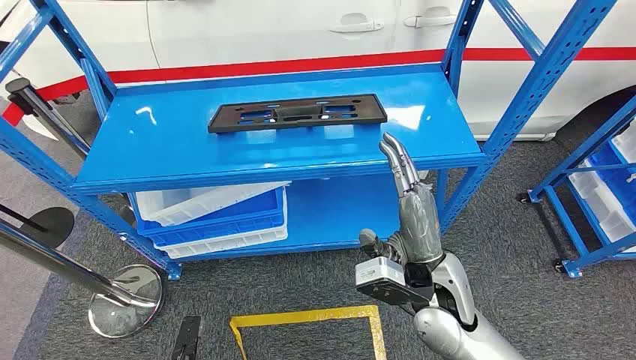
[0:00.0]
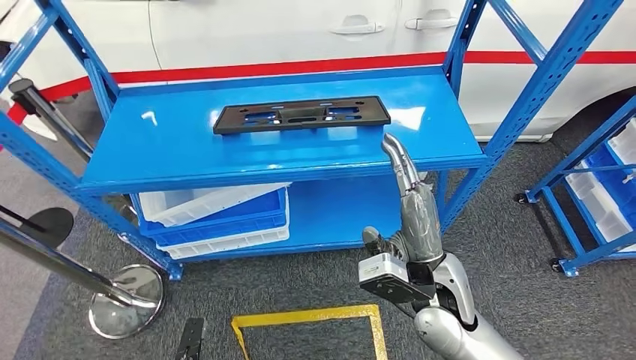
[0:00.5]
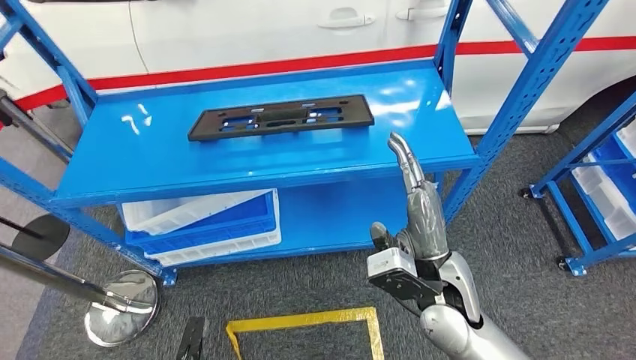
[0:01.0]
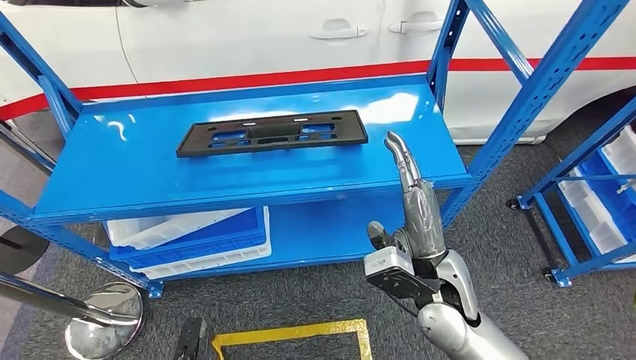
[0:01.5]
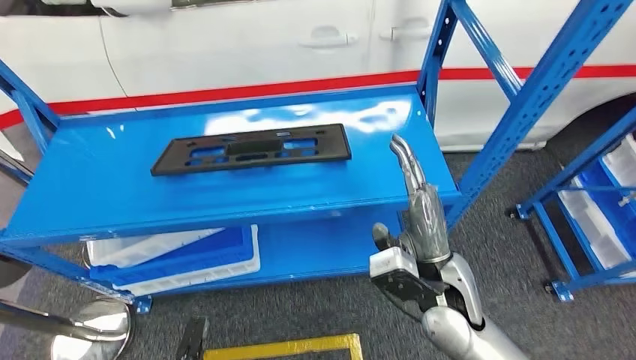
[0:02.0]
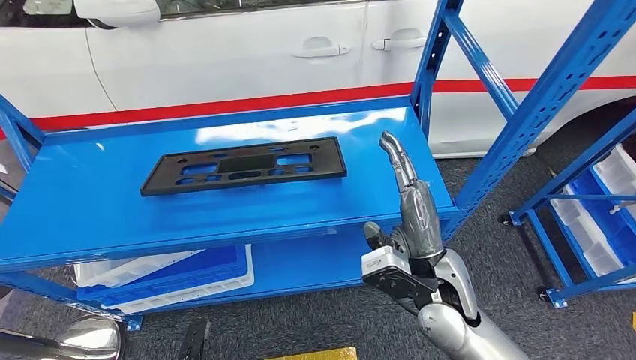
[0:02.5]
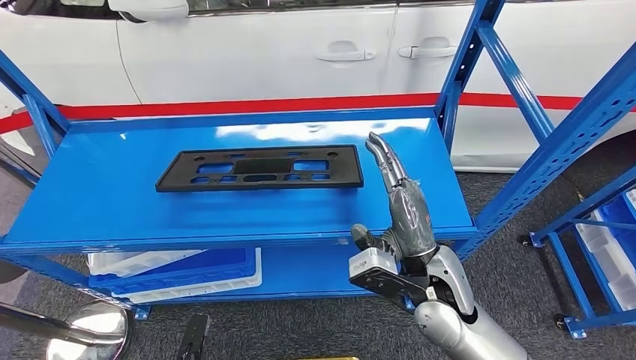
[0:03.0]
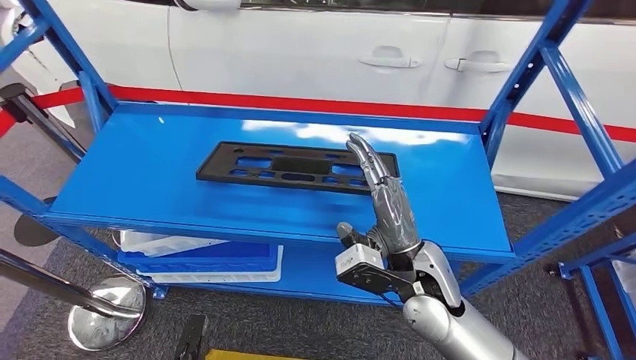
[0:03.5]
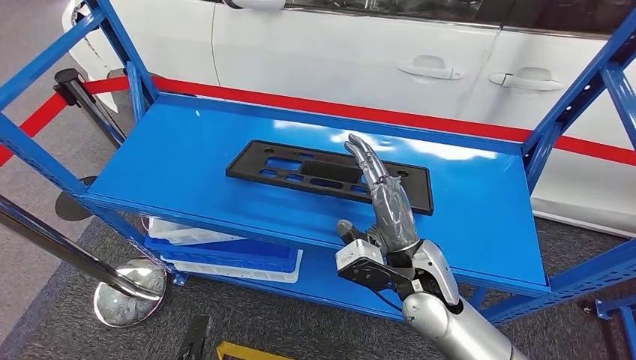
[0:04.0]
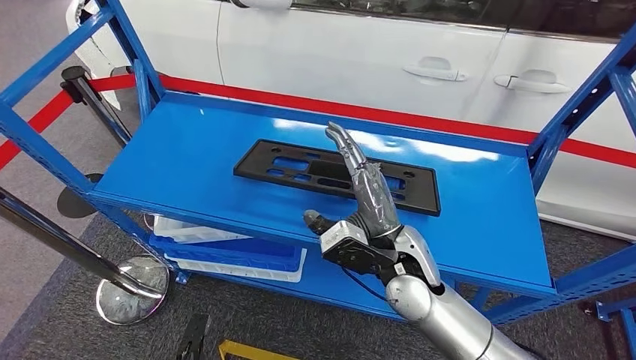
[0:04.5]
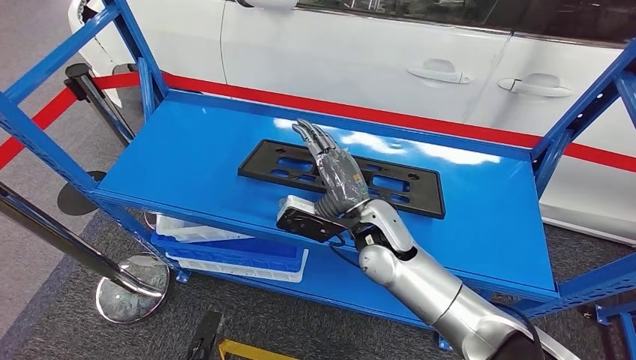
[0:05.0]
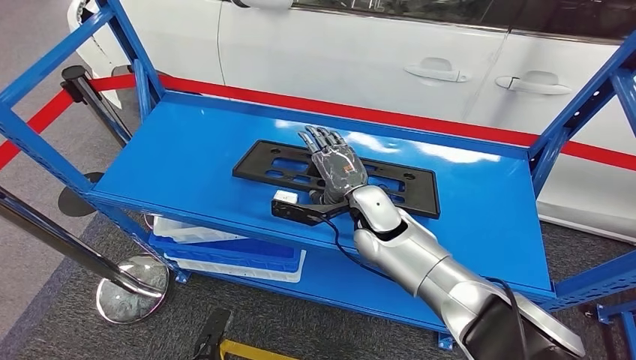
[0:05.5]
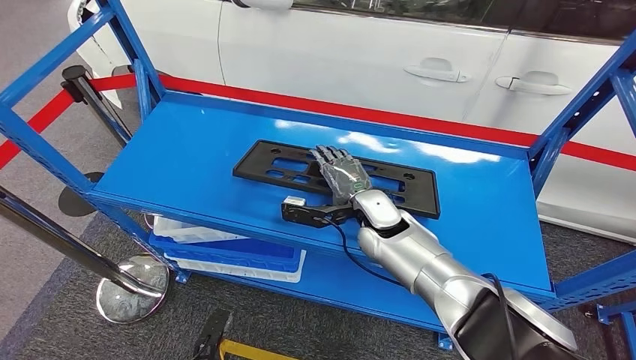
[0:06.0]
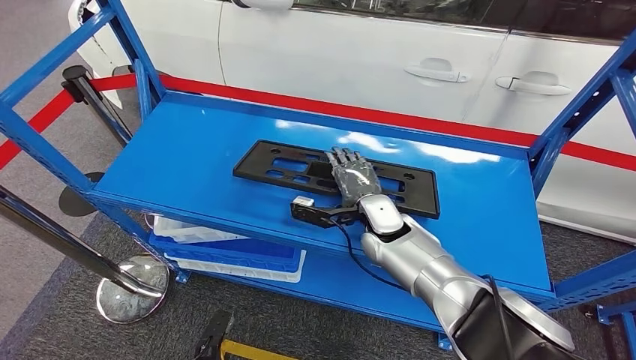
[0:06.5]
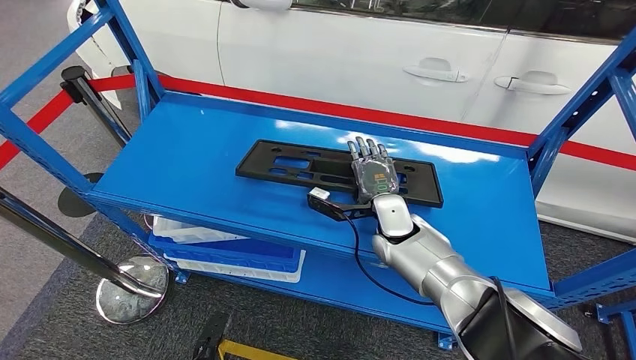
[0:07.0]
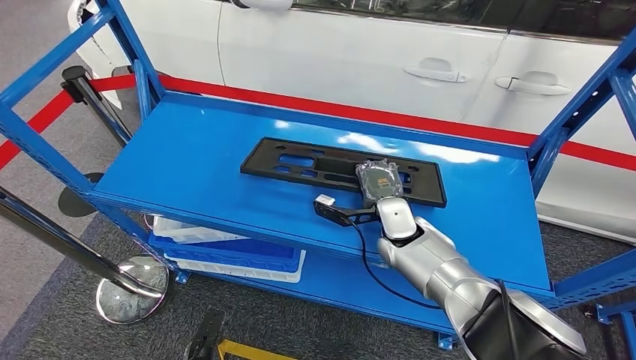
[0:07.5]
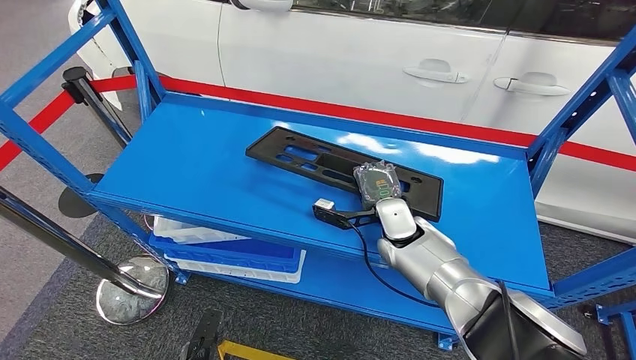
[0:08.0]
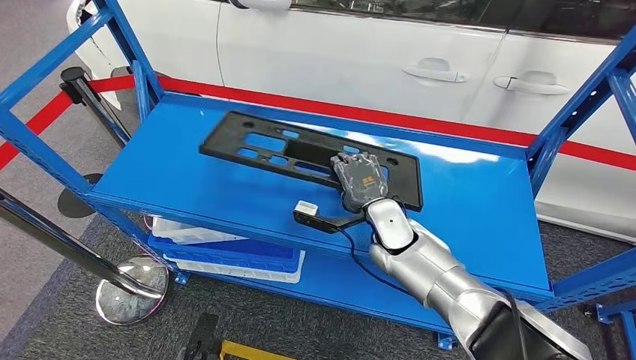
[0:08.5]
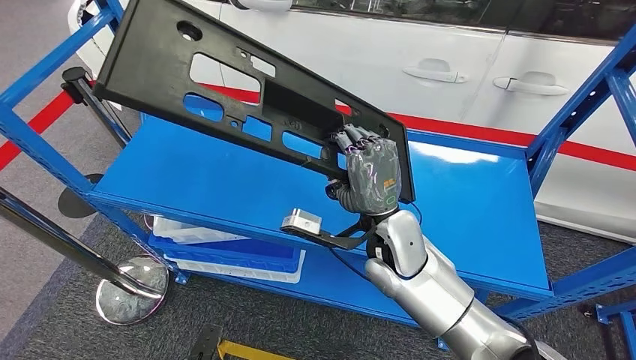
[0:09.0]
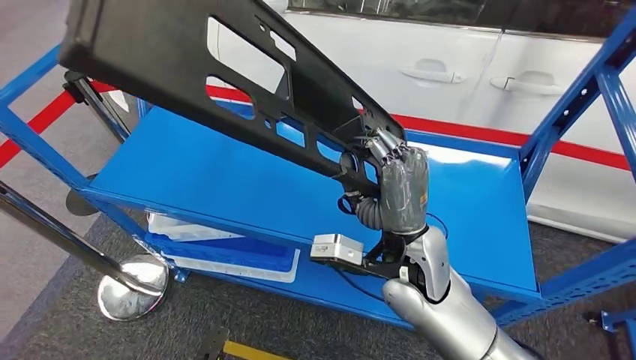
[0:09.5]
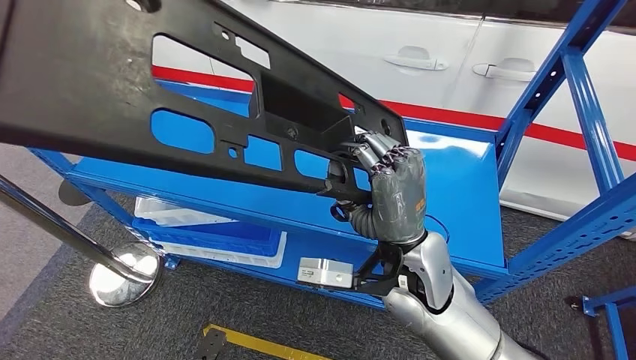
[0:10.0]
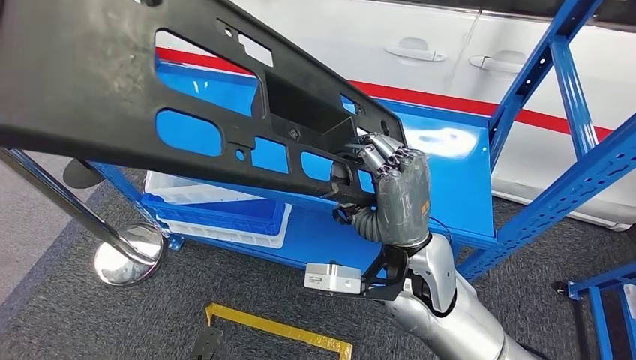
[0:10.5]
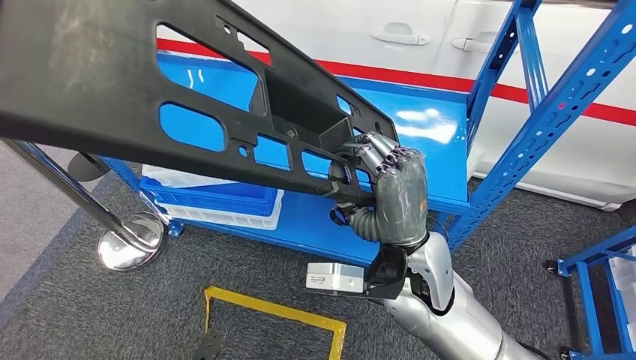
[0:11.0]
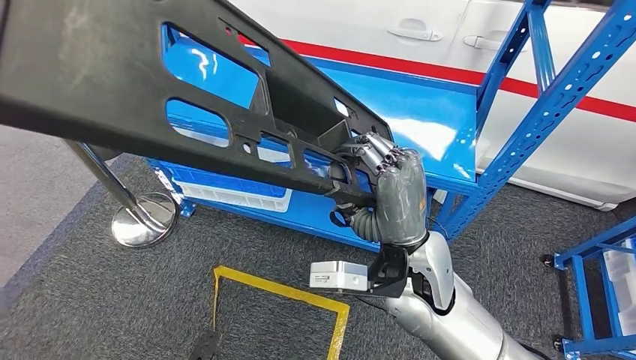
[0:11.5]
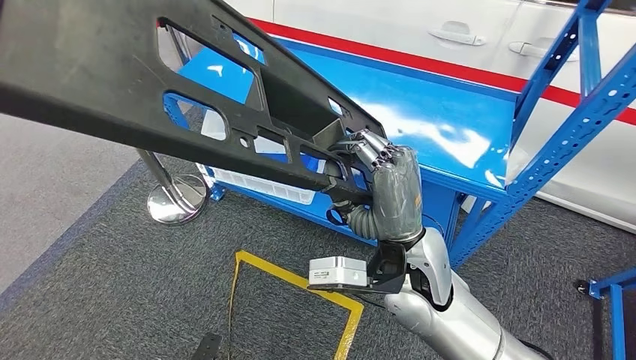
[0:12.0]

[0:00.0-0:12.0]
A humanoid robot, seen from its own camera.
Step, 0:00.0 to 0:11.0: Pick up the large material from the shelf.
0:06.0 to 0:08.0: The right hand moves some 5 cm.

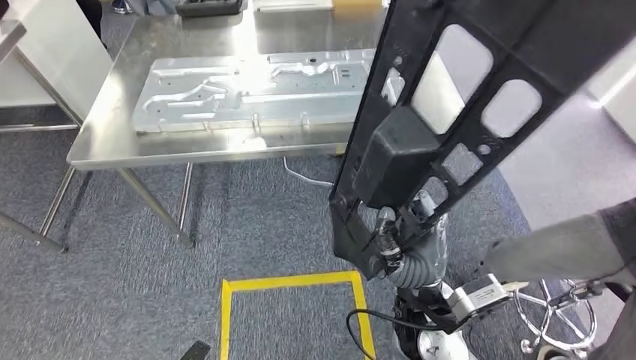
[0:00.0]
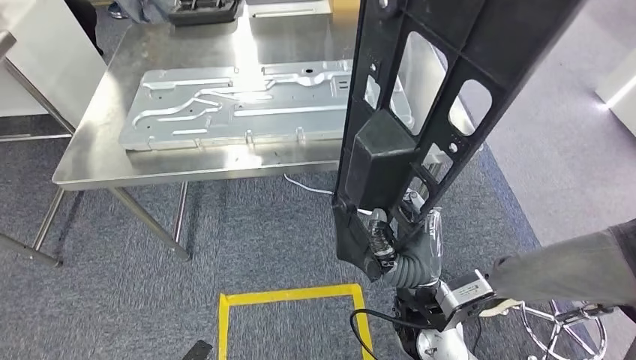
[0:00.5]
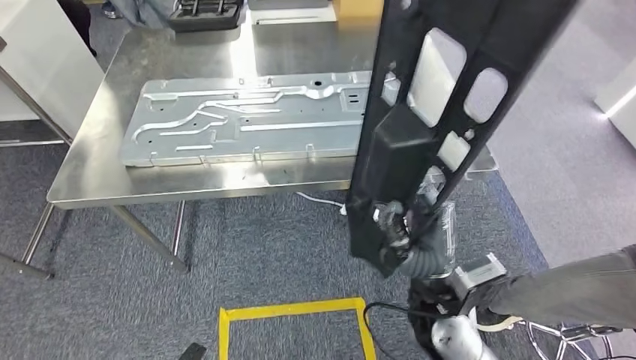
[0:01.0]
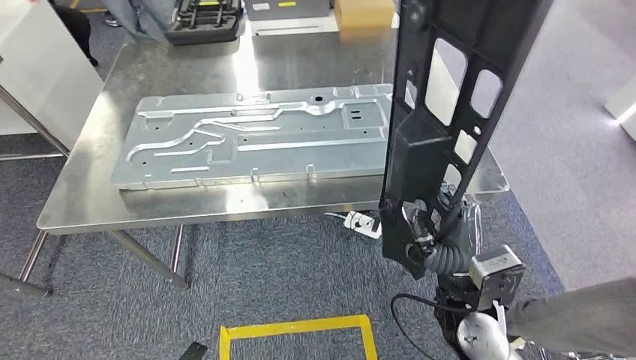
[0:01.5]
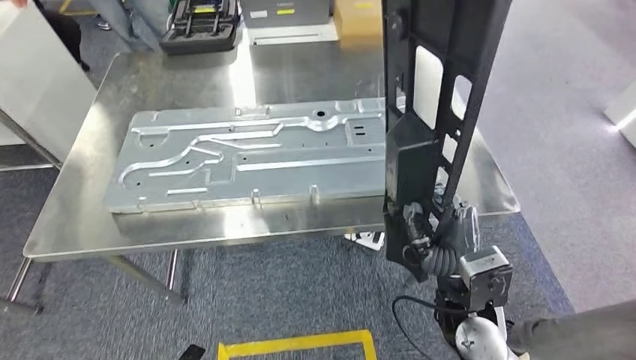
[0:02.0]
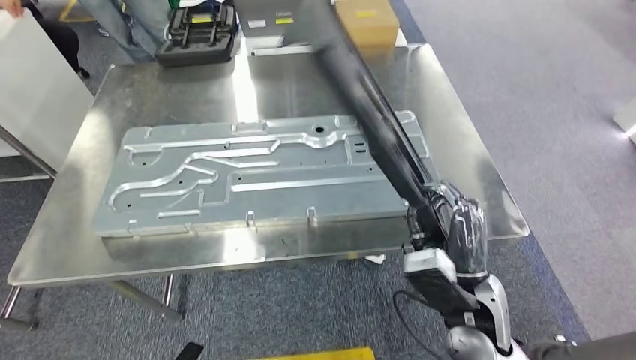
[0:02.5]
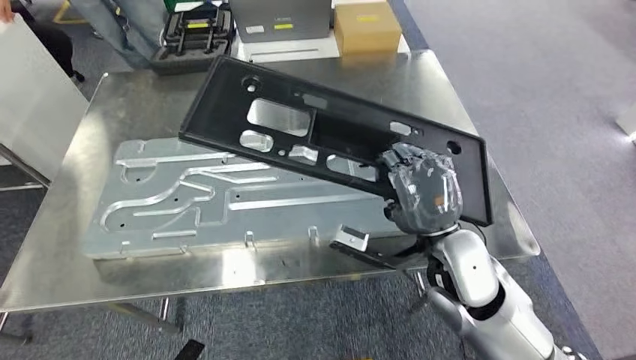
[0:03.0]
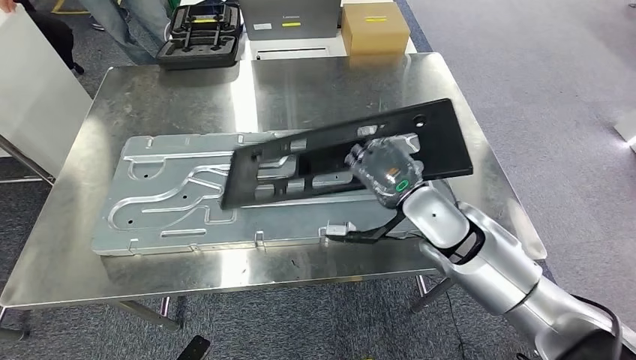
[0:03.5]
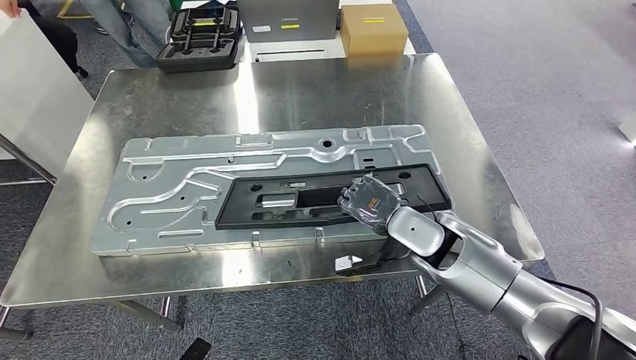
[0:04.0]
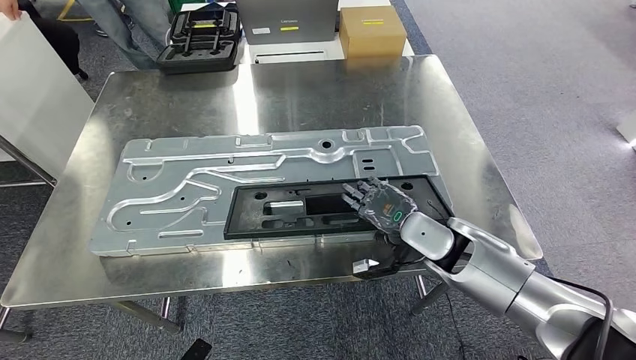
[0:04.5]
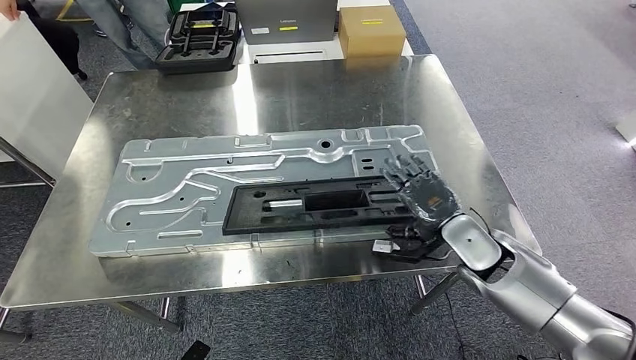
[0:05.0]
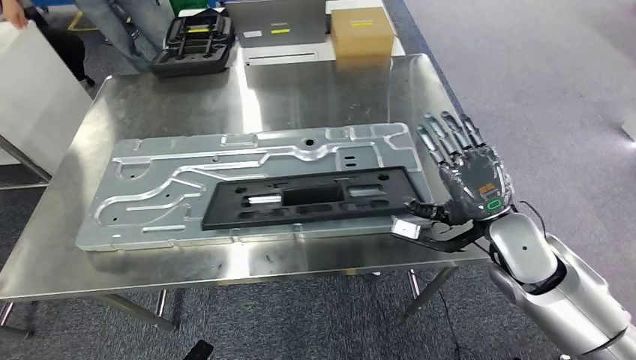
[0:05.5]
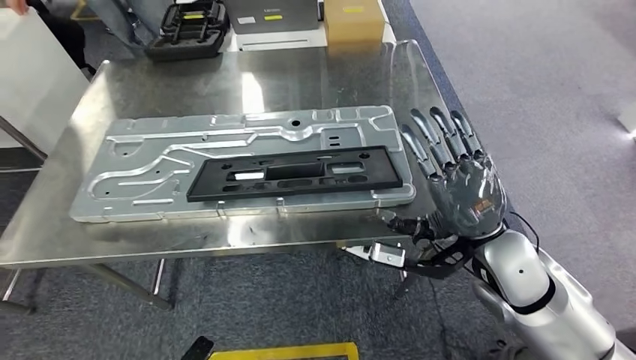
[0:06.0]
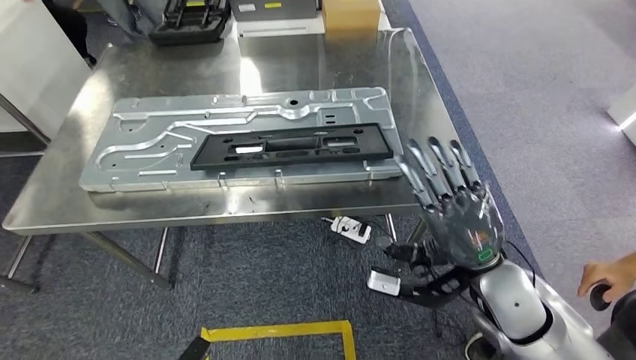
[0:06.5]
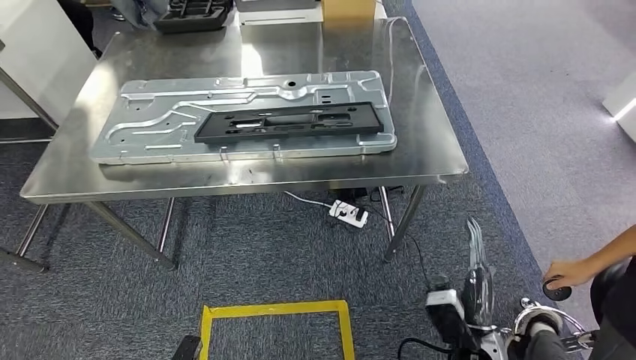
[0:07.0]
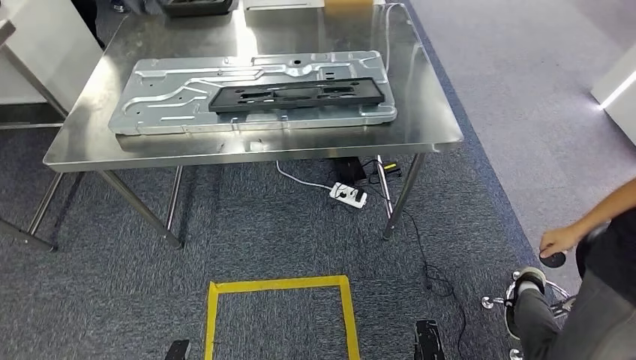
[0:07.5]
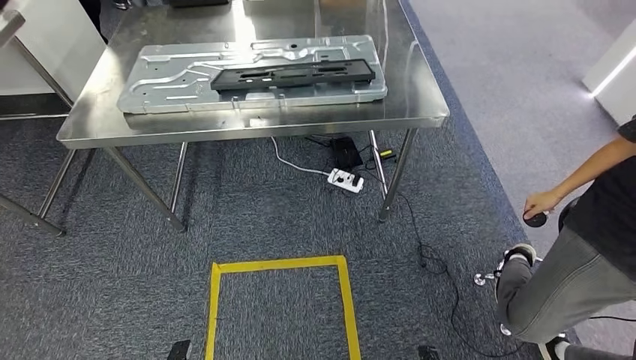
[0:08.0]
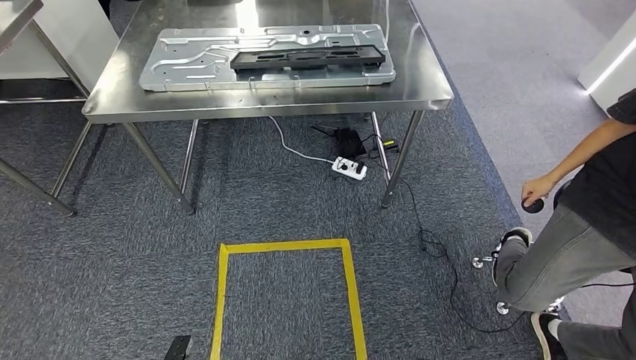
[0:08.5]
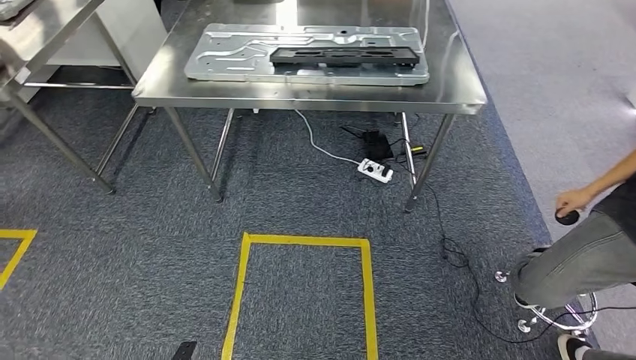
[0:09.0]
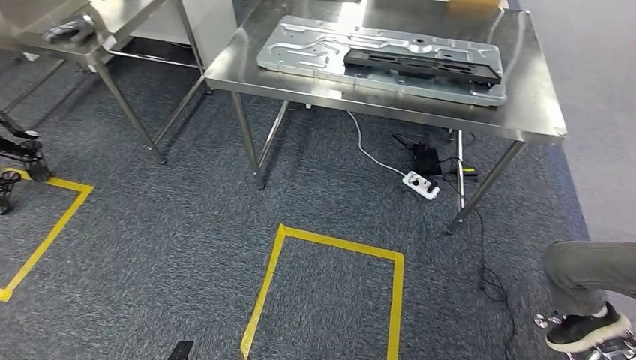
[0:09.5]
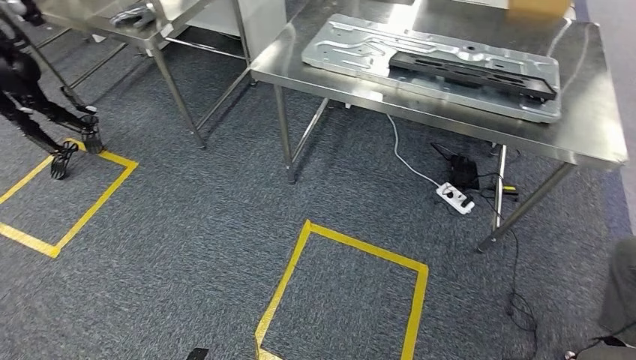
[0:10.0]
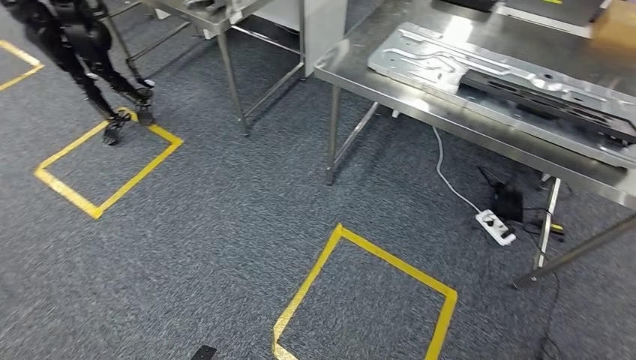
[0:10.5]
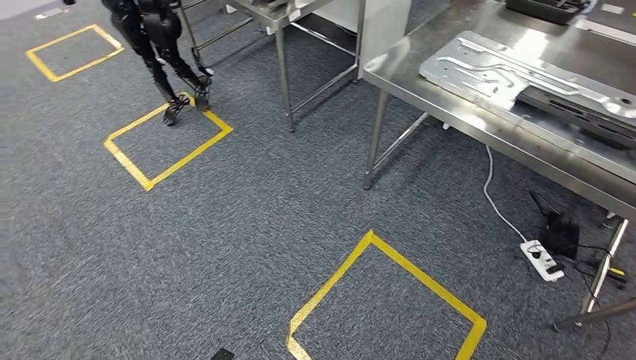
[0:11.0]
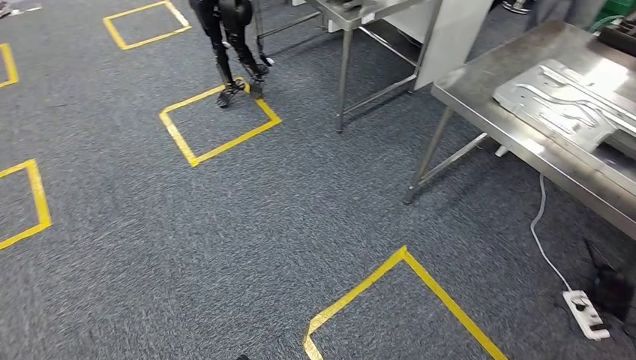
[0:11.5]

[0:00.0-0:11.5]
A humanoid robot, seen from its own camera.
Step, 0:01.0 to 0:10.5: Insert the large material into the corresponding slot on the workbench.
